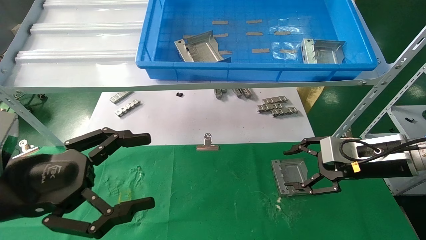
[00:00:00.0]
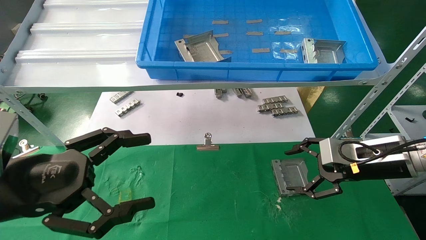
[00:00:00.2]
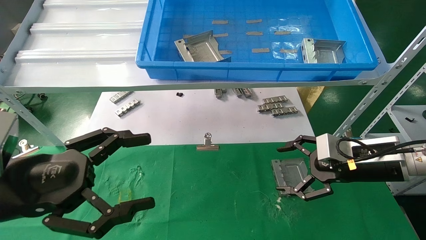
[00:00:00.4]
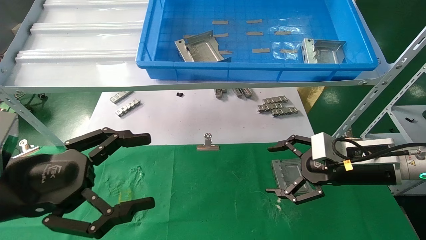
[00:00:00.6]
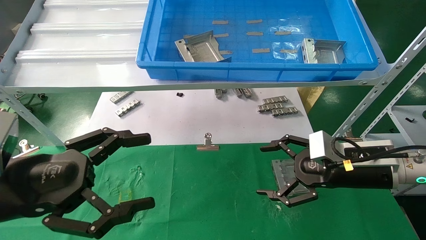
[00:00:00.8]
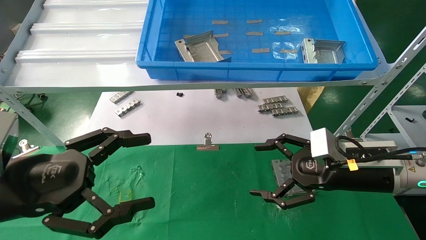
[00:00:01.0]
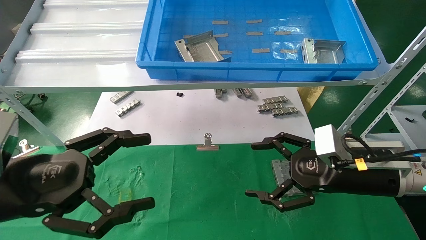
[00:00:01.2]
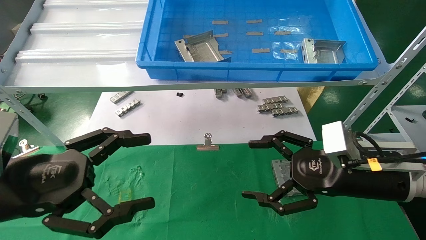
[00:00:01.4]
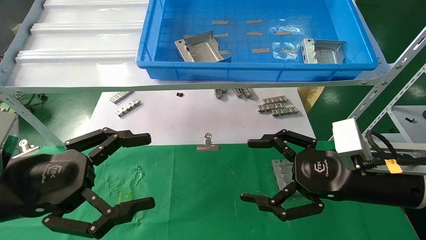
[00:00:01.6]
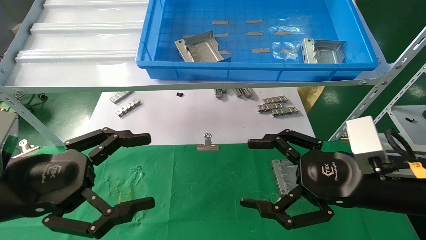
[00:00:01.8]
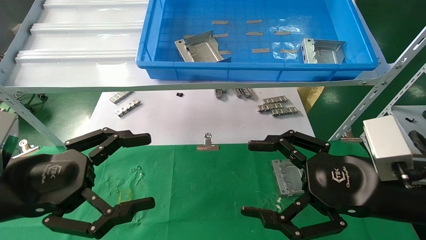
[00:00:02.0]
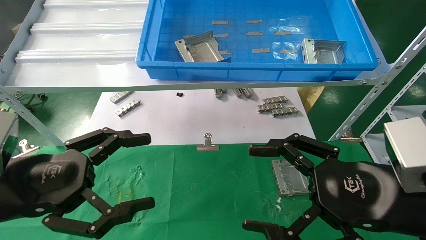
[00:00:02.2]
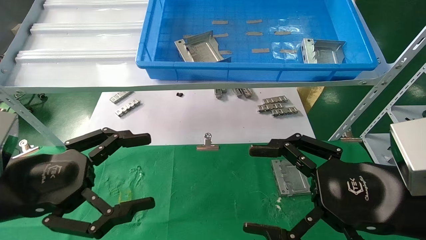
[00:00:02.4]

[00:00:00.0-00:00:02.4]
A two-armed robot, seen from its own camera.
Task of the whole recording: use the mechanical arm to pick up the parts and place them on the table.
00:00:00.0 to 00:00:01.2: The right gripper goes about 5 cm to the left, and opens its fingers.
00:00:01.2 to 00:00:02.4: The right gripper travels backward by approximately 10 cm.

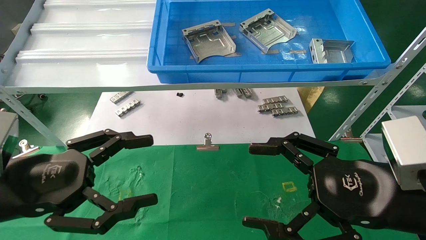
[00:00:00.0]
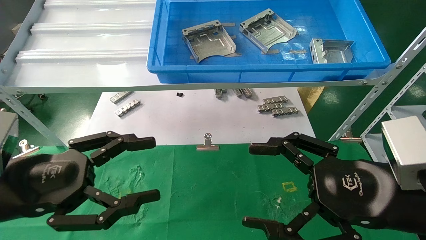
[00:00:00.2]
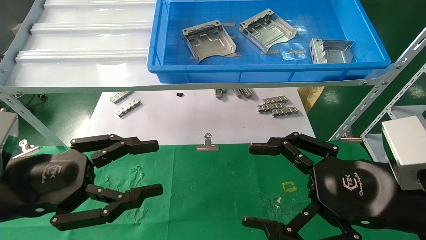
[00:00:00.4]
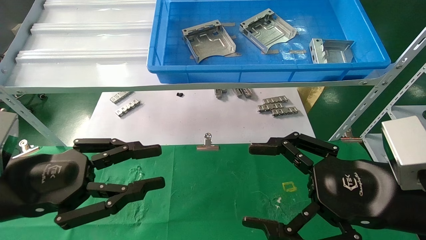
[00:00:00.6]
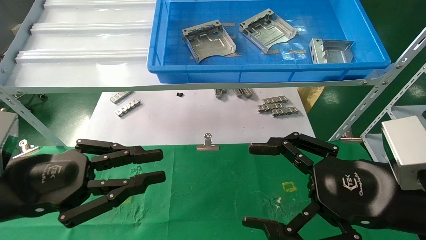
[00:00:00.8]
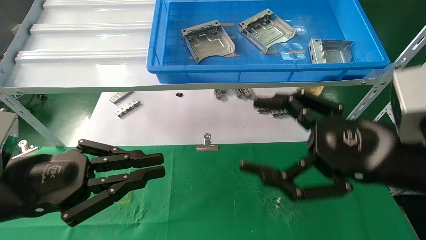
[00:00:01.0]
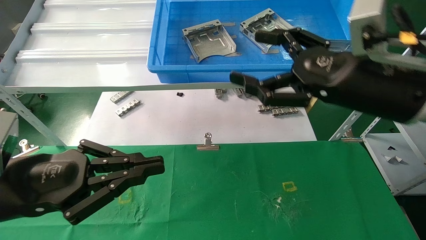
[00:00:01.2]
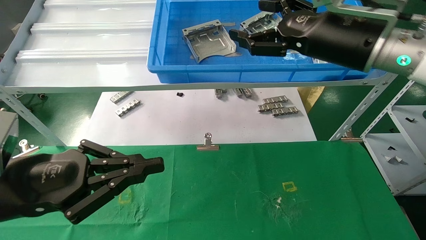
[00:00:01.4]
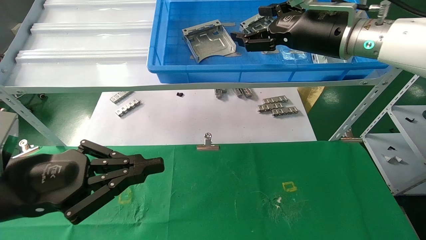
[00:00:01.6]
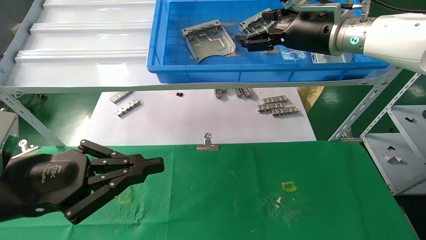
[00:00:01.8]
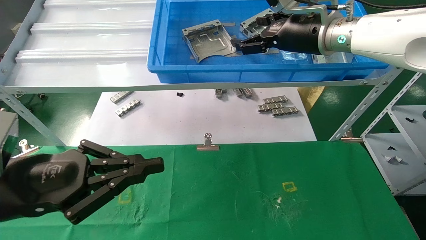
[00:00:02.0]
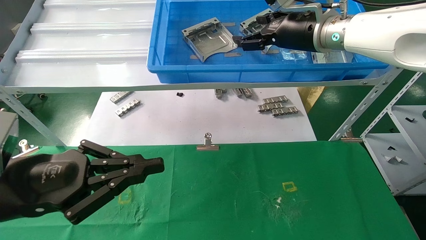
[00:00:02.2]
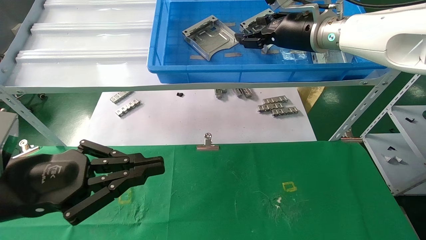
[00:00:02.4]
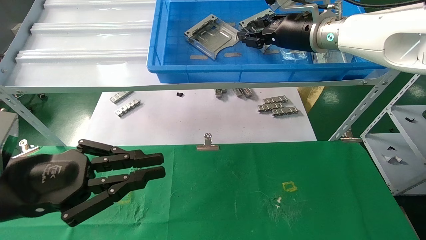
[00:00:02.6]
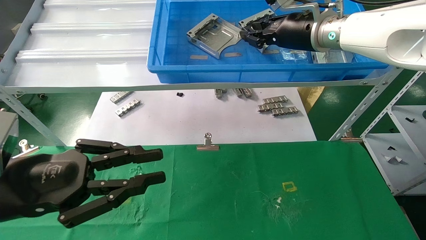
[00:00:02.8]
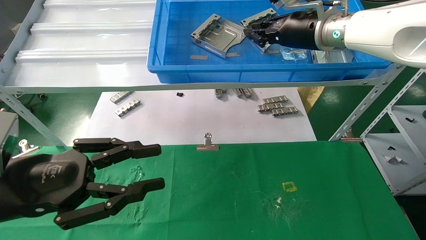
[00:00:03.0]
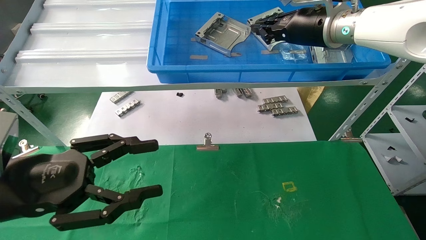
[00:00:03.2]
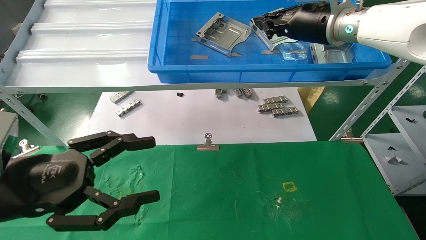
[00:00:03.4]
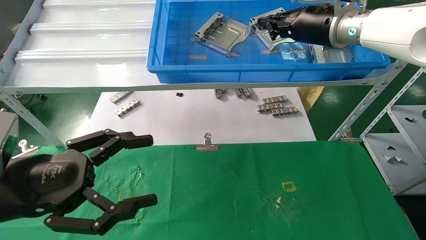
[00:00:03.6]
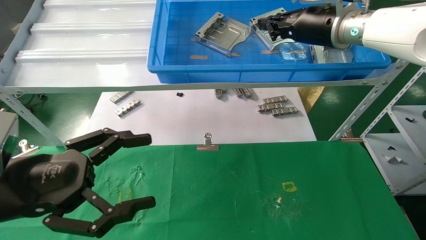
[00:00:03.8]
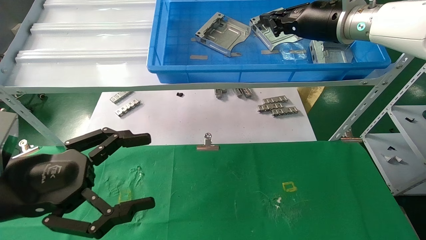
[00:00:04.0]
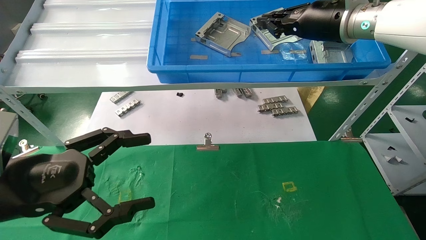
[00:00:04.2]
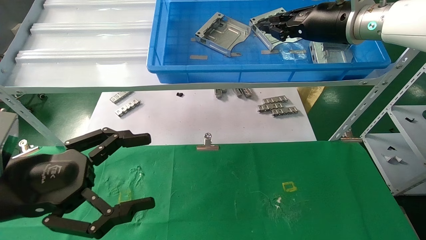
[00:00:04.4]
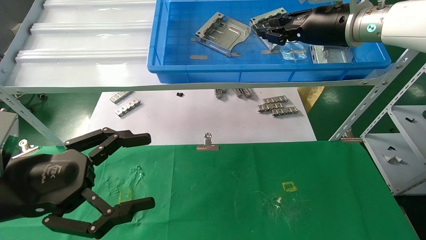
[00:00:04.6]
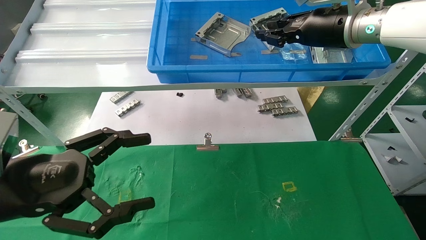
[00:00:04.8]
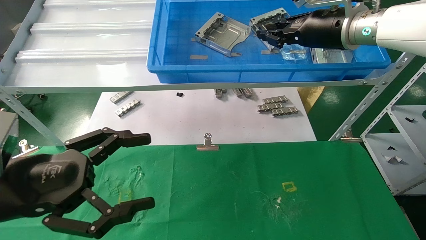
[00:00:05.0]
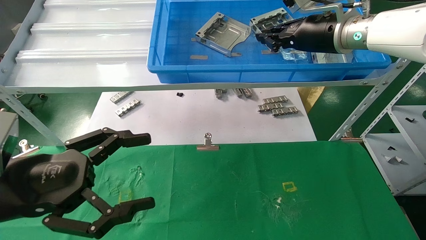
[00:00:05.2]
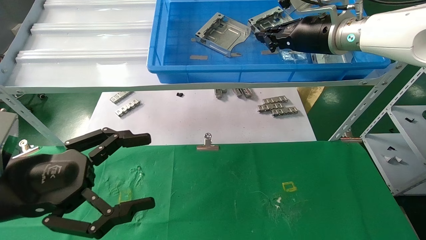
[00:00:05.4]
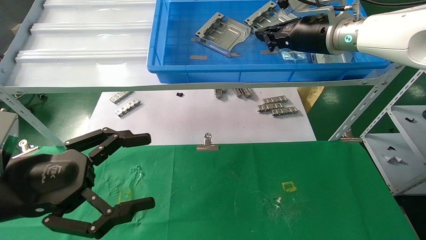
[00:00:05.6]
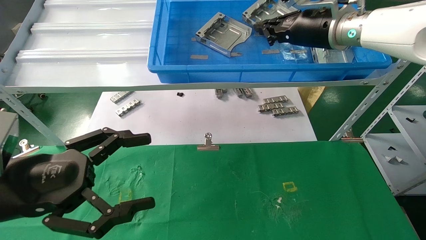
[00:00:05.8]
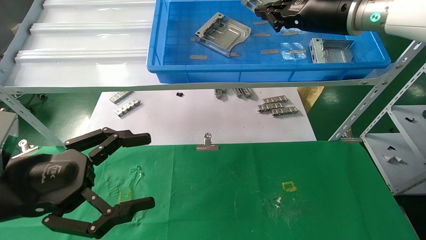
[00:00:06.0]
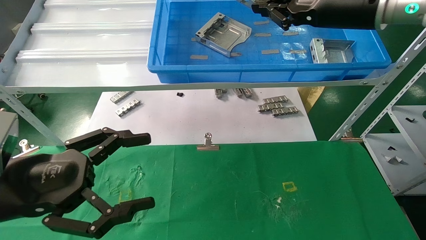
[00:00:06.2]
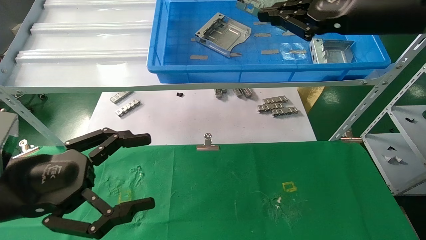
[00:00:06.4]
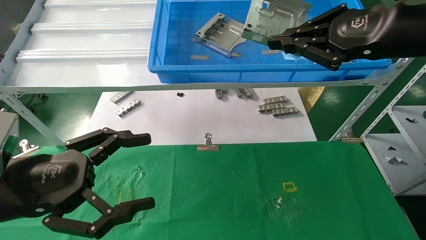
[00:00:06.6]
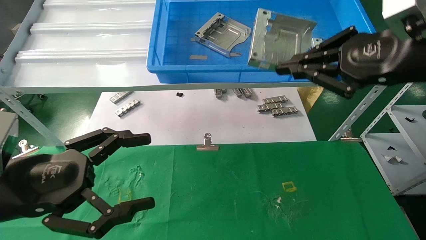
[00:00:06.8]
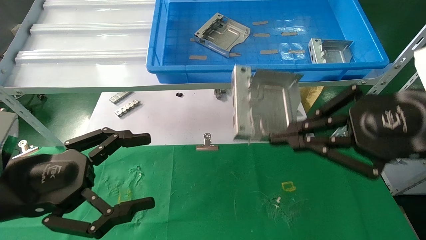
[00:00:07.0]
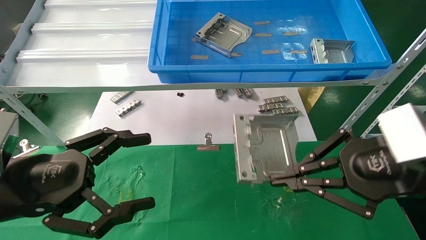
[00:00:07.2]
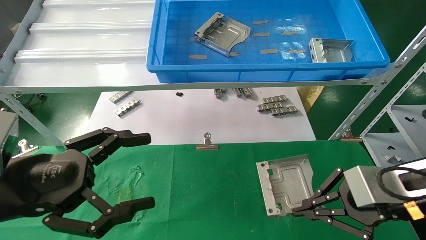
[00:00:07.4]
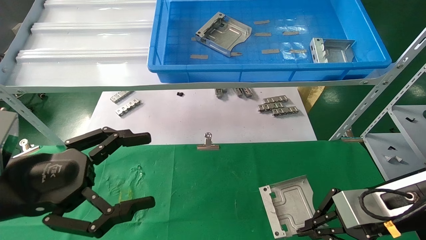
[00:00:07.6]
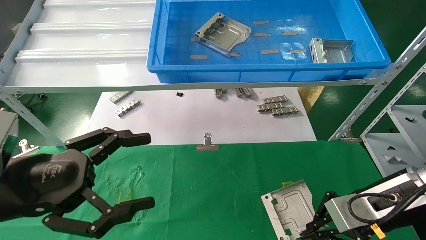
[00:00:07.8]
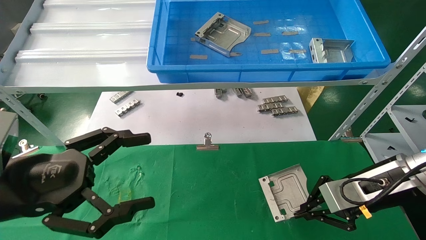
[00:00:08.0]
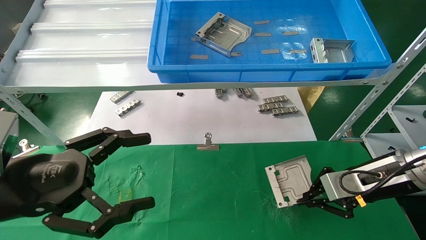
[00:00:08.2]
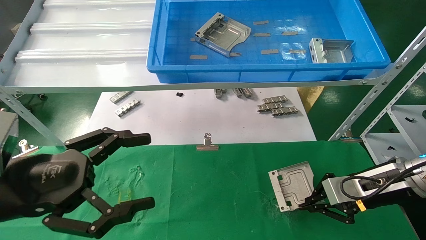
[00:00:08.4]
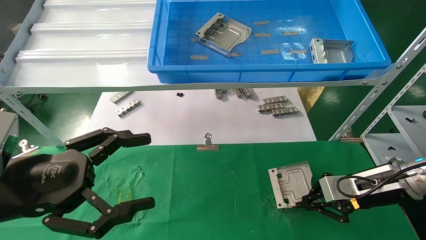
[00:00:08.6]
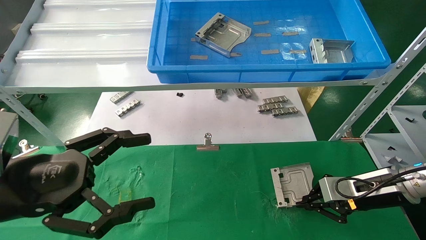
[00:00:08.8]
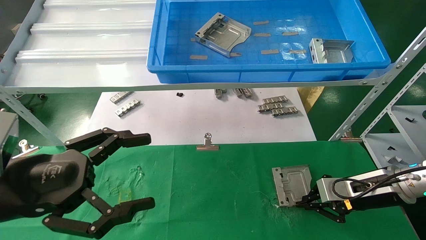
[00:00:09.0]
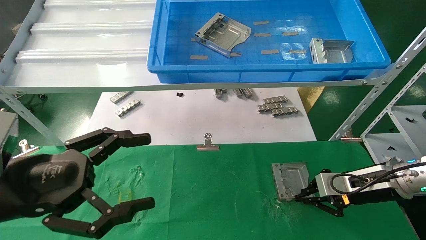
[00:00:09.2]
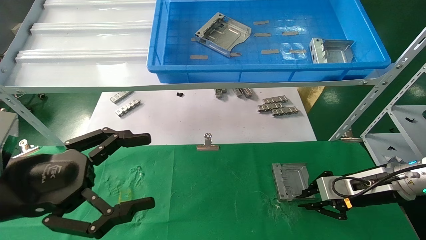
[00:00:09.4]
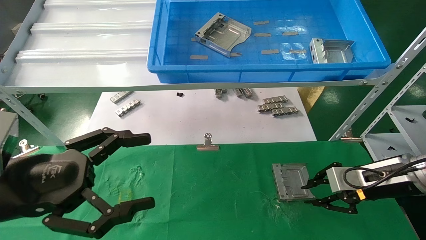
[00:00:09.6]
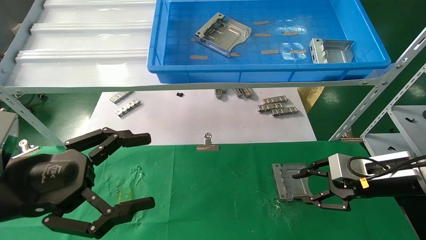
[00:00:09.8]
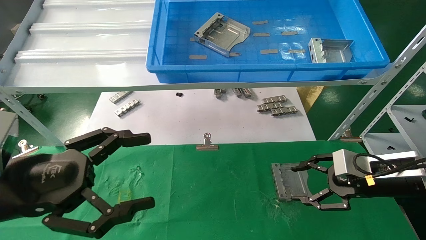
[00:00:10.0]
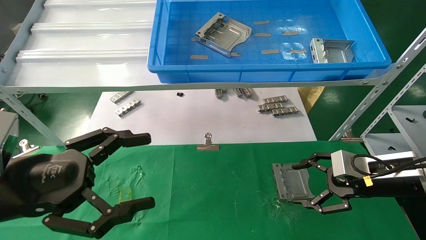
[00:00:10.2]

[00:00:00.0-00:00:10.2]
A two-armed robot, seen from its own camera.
Task of the whole recording: use the mechanical arm to pick up the parts and place them on the table.
Step, 00:00:02.4 to 00:00:06.6: Pick up the hard drive bracket from the feeding area.
00:00:00.0 to 00:00:01.4: The right gripper goes some 20 cm forward and upward; the left gripper closes its fingers.
00:00:01.4 to 00:00:03.0: The right gripper moves forward, some 10 cm, and closes up.
00:00:03.0 to 00:00:04.4: The left gripper opens.
00:00:04.4 to 00:00:05.8: There are only small adjustments of the grippers.
00:00:05.8 to 00:00:07.2: The right gripper shifts about 25 cm backward and downward.
00:00:07.2 to 00:00:08.8: The right gripper travels downward and forward by roughly 20 cm.
00:00:08.8 to 00:00:10.2: The right gripper opens its fingers.

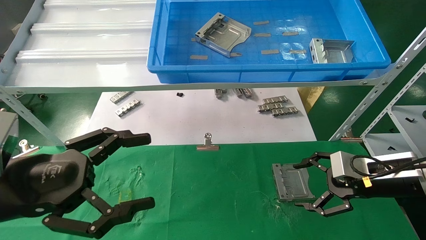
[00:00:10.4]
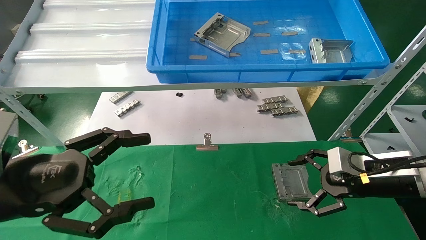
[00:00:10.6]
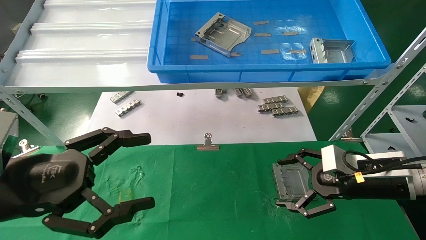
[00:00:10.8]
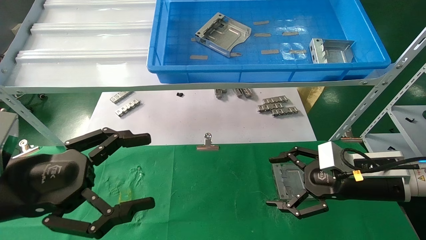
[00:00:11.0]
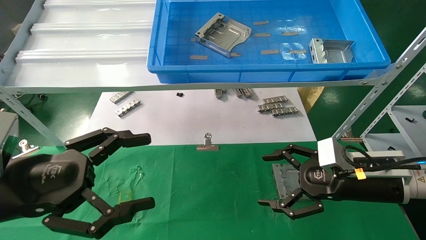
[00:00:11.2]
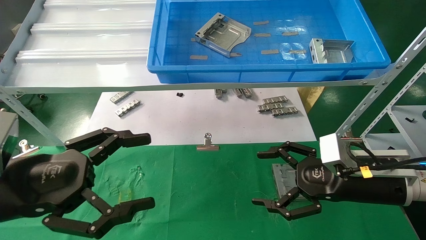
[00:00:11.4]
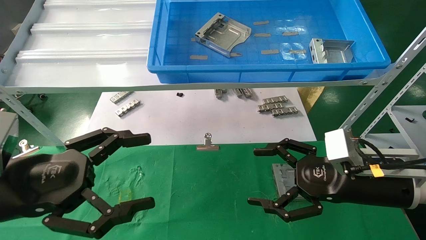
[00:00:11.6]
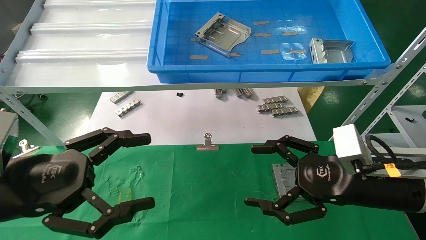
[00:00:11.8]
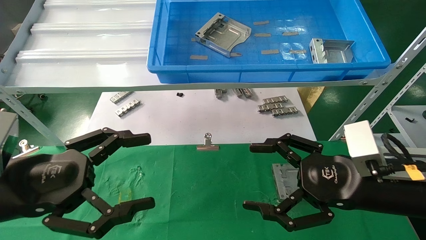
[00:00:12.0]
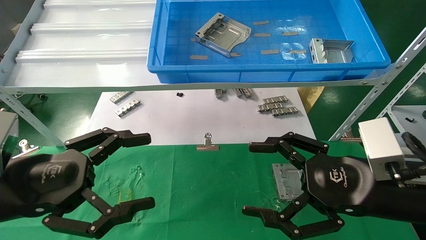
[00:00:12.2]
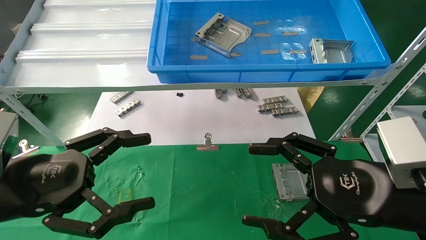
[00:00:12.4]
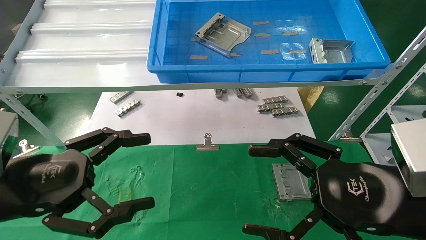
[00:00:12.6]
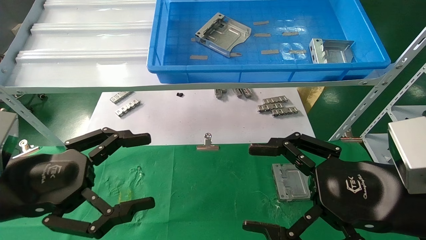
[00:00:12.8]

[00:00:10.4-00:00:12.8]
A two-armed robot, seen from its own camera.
Task of the whole recording: use the mechanical arm to pick up the parts and place them on the table.
00:00:10.4 to 00:00:11.6: The right gripper moves to the left and backward, roughly 10 cm.
00:00:11.6 to 00:00:12.8: The right gripper travels backward by approximately 10 cm.
